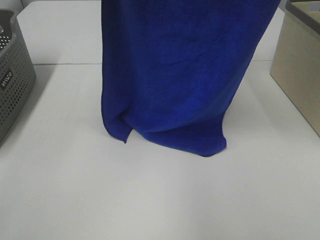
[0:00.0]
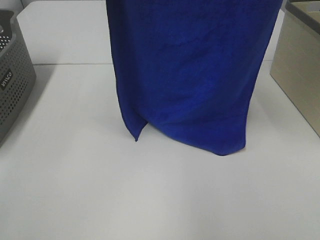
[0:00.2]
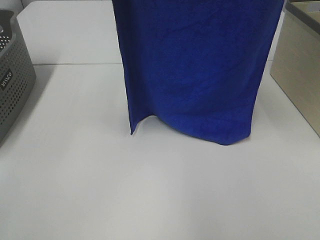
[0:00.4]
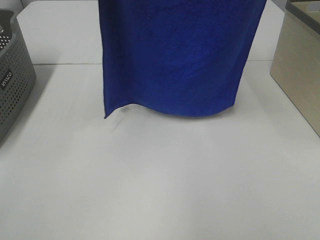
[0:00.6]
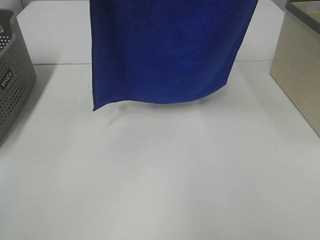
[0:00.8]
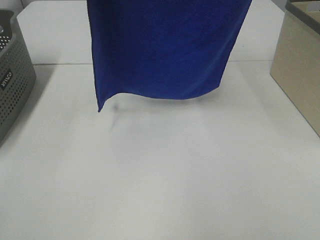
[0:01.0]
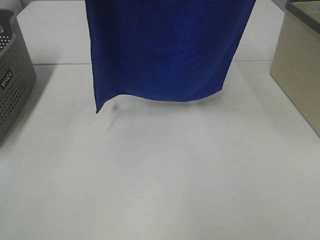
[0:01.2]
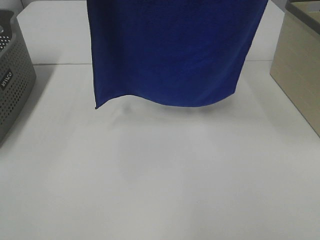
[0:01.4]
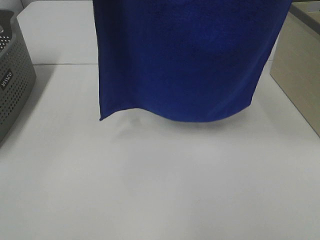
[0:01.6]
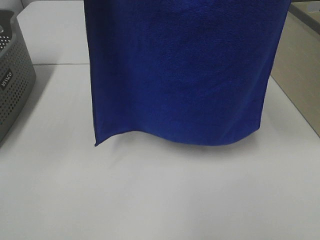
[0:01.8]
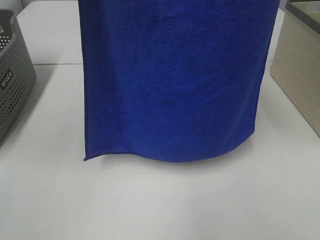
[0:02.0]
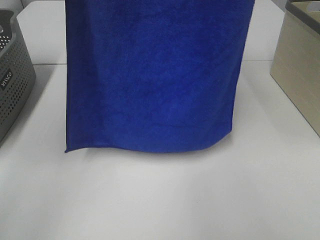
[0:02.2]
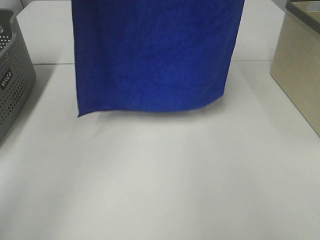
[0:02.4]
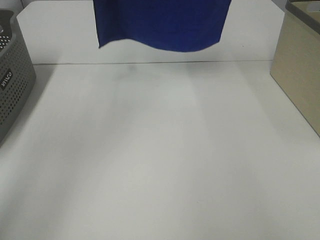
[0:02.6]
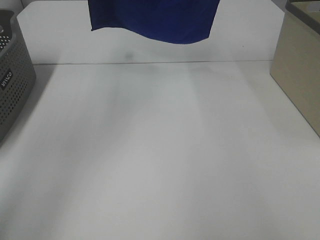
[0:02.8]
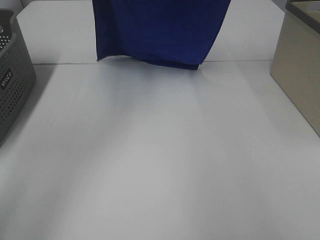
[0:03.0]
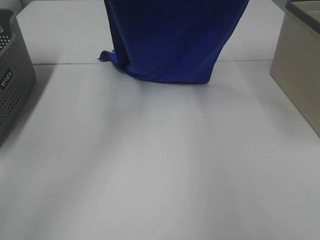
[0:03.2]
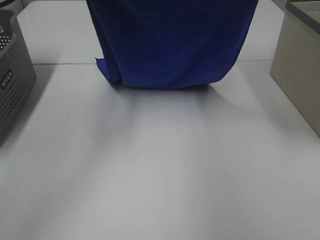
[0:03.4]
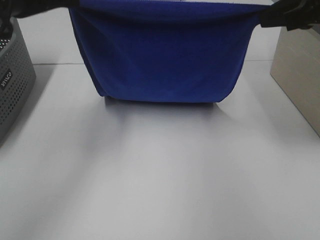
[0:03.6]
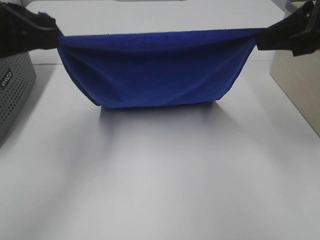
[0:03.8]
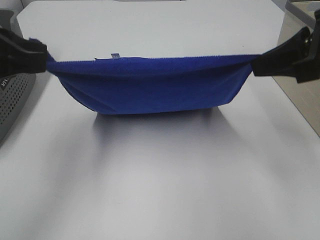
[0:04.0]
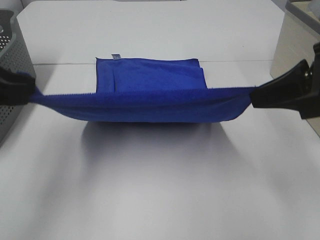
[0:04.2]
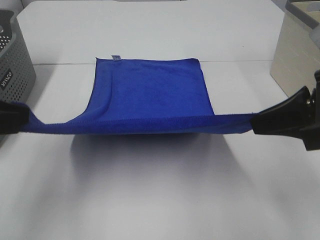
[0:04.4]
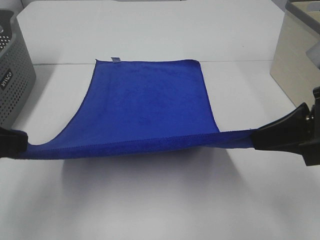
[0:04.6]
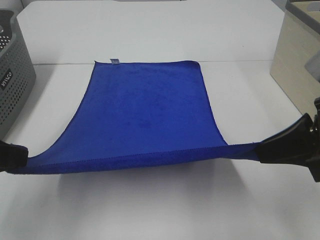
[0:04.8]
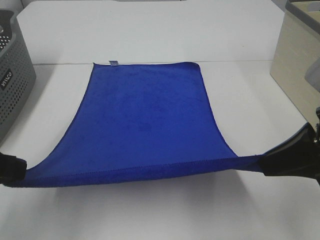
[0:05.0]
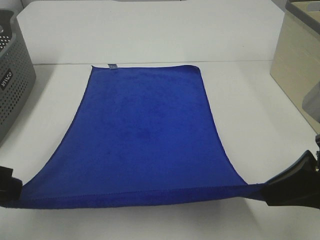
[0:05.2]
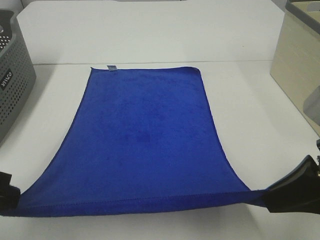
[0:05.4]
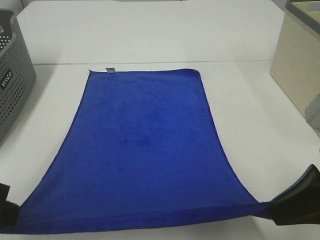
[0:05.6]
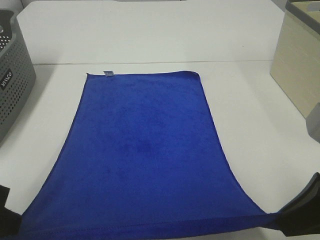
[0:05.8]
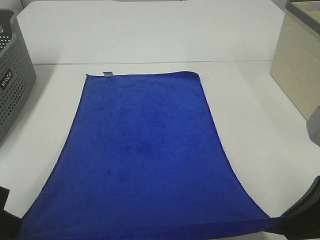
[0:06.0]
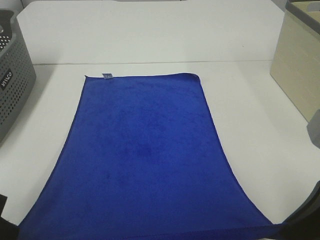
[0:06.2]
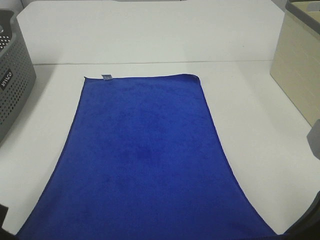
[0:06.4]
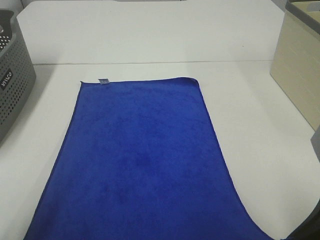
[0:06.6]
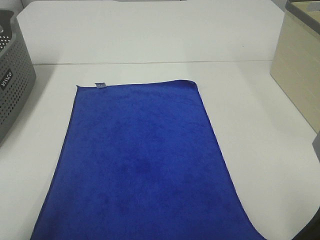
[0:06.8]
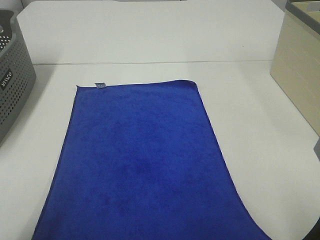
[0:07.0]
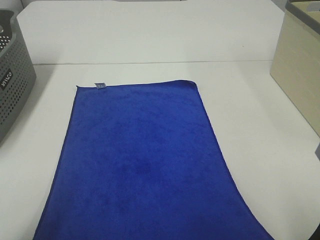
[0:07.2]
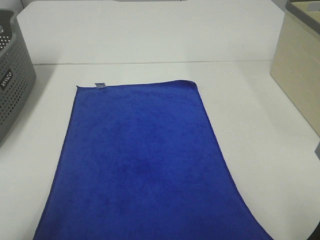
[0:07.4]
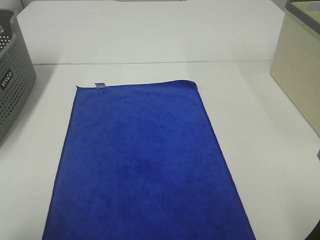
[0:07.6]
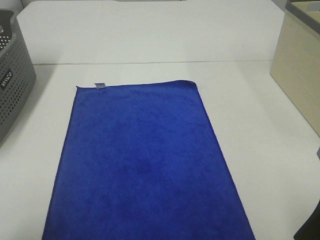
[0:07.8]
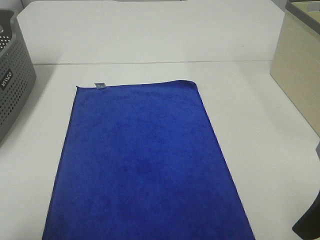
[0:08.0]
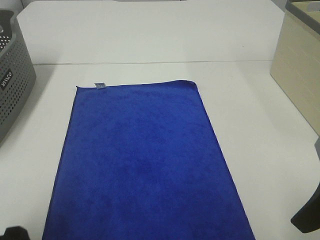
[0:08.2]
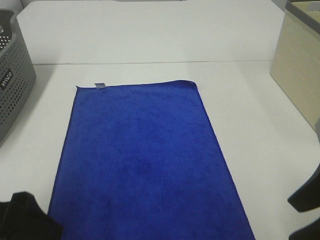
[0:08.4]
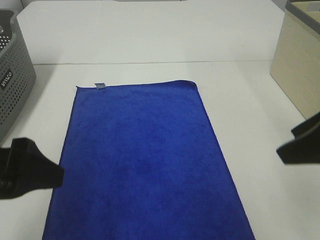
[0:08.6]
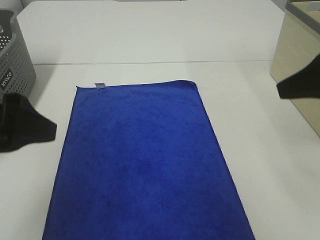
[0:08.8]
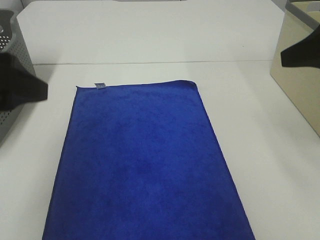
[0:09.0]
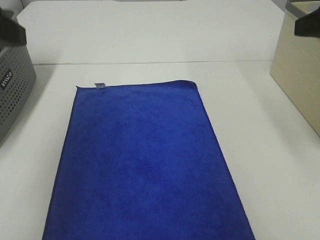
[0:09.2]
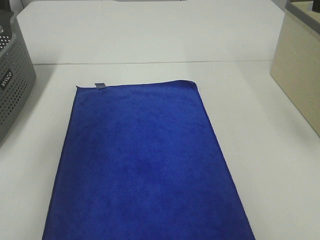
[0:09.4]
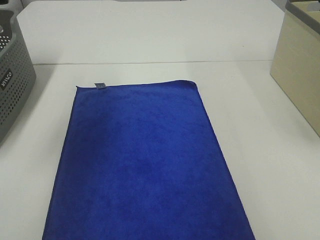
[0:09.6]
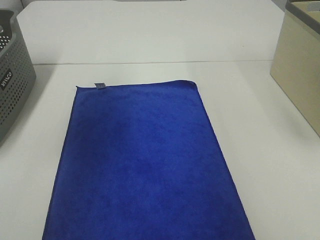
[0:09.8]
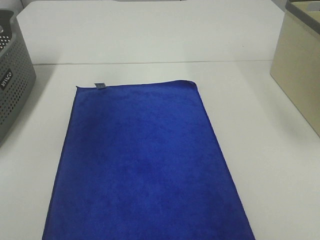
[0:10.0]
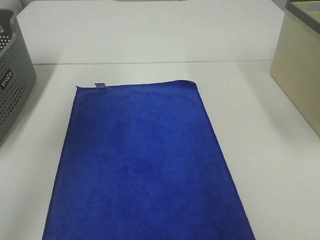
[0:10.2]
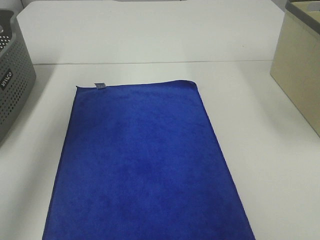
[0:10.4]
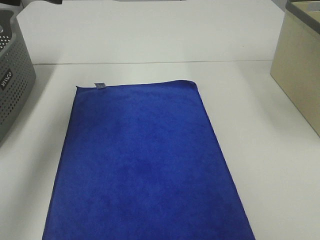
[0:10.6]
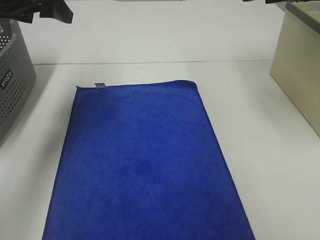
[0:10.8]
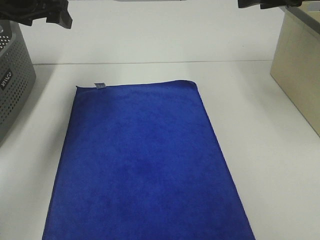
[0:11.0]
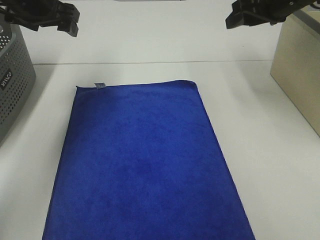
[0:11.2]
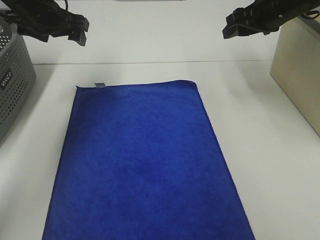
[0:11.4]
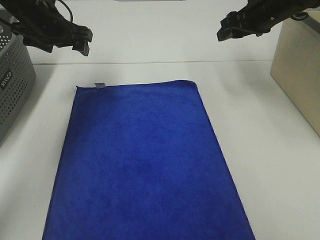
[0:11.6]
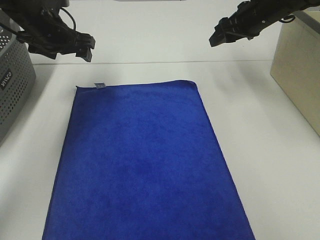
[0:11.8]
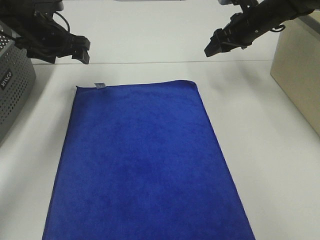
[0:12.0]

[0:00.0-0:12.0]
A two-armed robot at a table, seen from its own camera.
Task of the whole recording: Remove the towel and place it.
Step, 0:00.0 to 0:02.8: Left hand: spread the blue towel flat on the table.
Step, 0:00.0 to 0:02.8: Right hand: spread the blue towel flat on the table.
0:00.0 to 0:01.6: The left gripper moves backward and upward, about 10 cm, while the right gripper goes approximately 10 cm upward and backward.
0:01.6 to 0:03.0: Both grippers move forward and downward, roughly 20 cm.
0:03.0 to 0:04.4: The left gripper goes about 30 cm backward and downward; the right gripper goes roughly 30 cm downward and backward.
0:04.4 to 0:06.0: The right gripper shifts about 5 cm backward, while the left gripper shifts by roughly 5 cm.
0:06.0 to 0:07.6: The left gripper shifts by about 5 cm, and opens up; the right gripper opens.
0:07.6 to 0:09.0: The grippers both shift upward and forward by some 15 cm. The left gripper opens up. Meanwhile the right gripper opens.
0:09.0 to 0:10.4: Both grippers travel together forward, approximately 15 cm.
0:10.4 to 0:12.0: The right gripper travels forward and downward by approximately 25 cm; the left gripper travels downward and forward by roughly 25 cm.

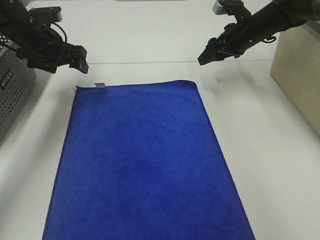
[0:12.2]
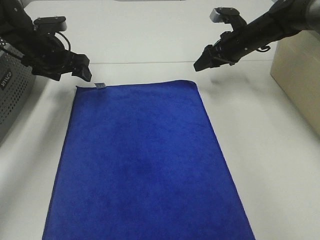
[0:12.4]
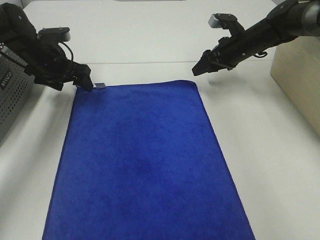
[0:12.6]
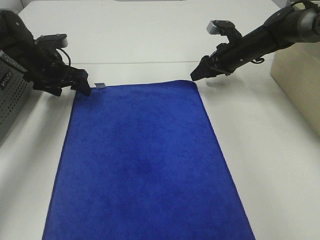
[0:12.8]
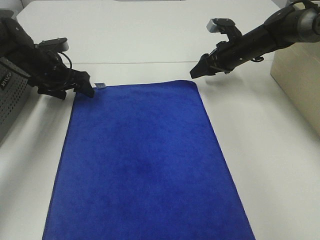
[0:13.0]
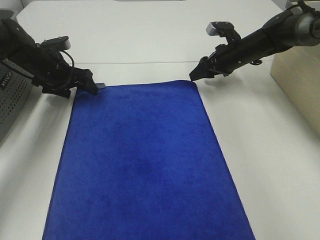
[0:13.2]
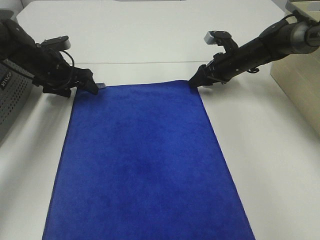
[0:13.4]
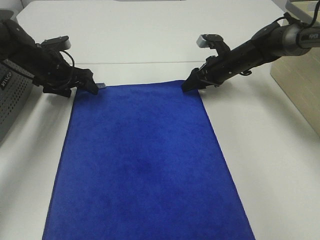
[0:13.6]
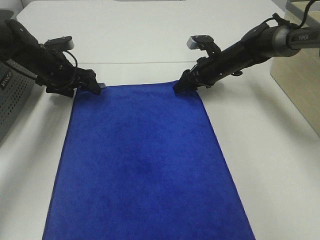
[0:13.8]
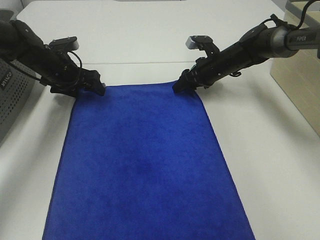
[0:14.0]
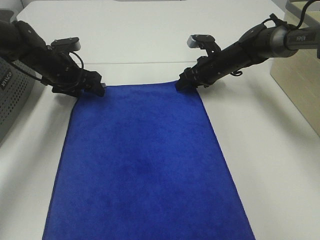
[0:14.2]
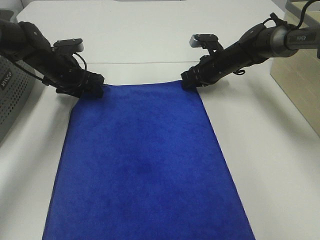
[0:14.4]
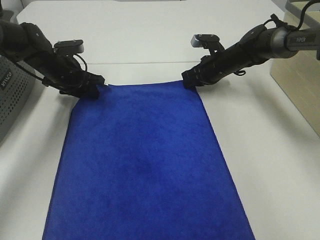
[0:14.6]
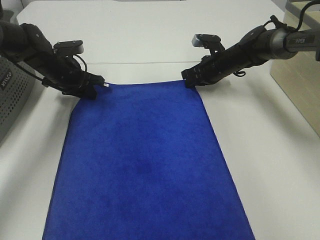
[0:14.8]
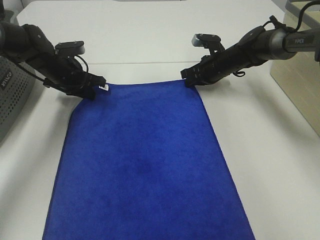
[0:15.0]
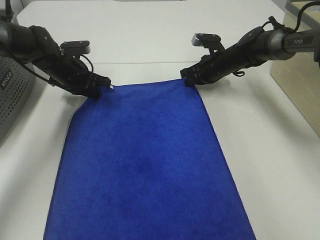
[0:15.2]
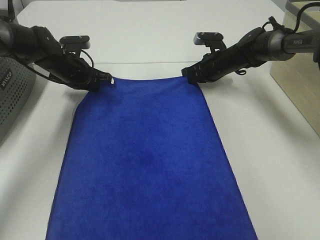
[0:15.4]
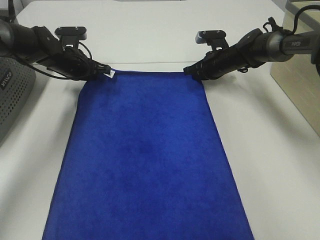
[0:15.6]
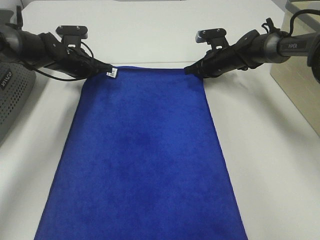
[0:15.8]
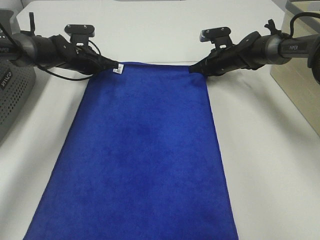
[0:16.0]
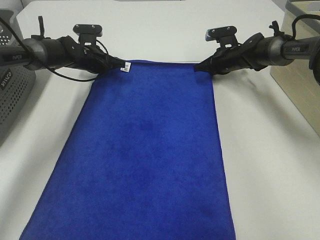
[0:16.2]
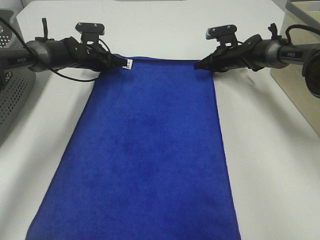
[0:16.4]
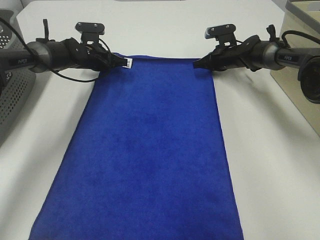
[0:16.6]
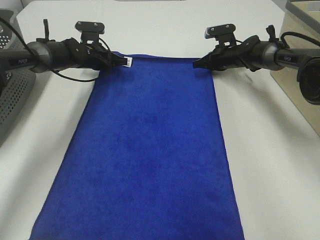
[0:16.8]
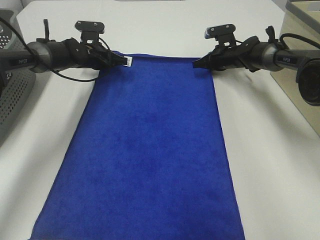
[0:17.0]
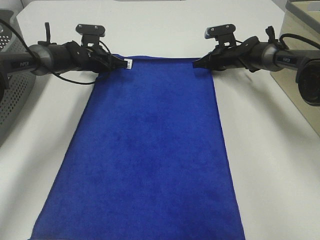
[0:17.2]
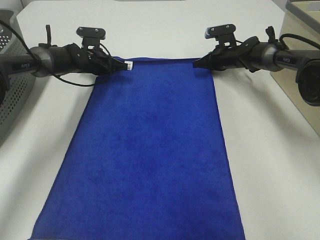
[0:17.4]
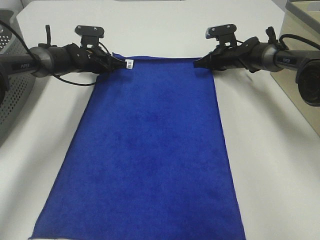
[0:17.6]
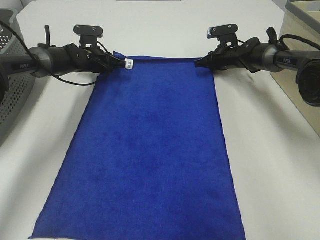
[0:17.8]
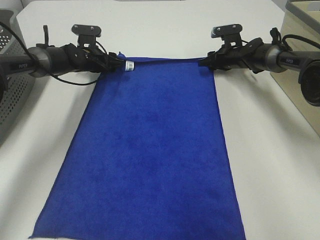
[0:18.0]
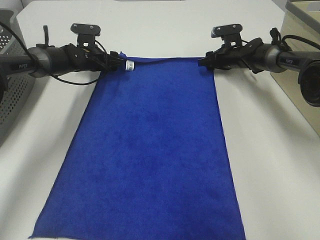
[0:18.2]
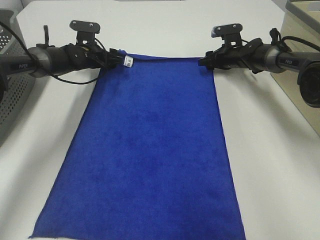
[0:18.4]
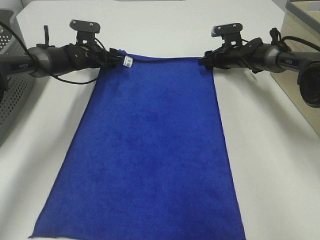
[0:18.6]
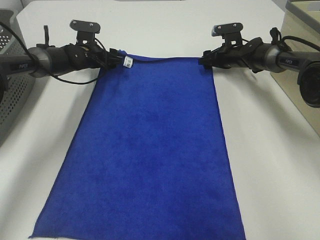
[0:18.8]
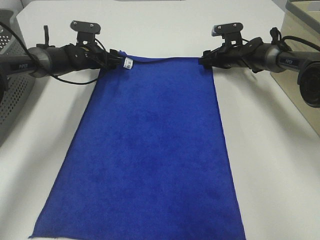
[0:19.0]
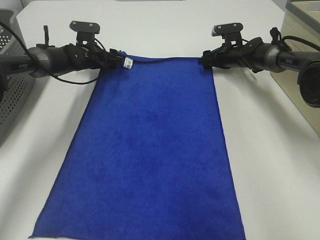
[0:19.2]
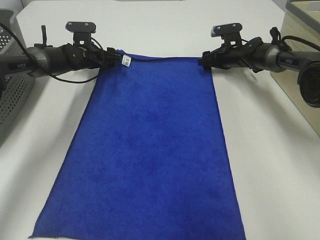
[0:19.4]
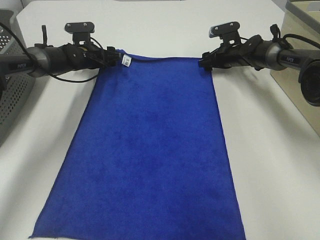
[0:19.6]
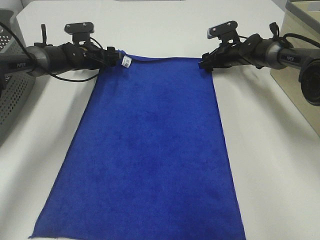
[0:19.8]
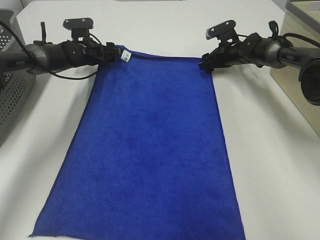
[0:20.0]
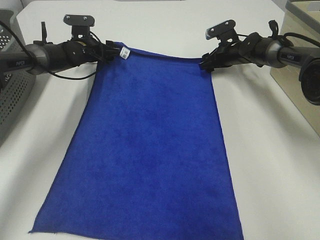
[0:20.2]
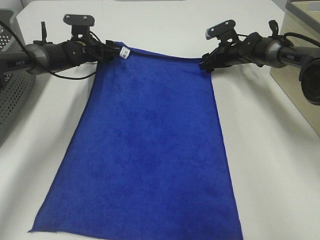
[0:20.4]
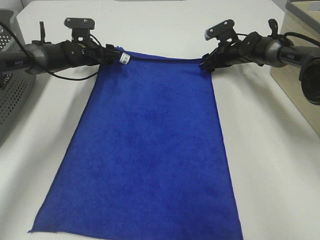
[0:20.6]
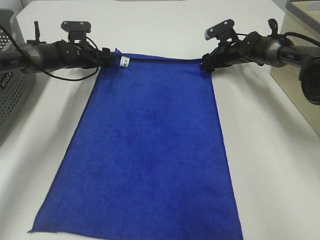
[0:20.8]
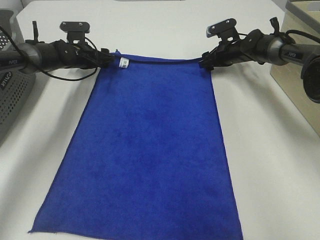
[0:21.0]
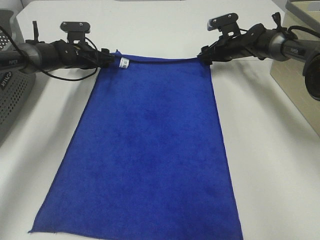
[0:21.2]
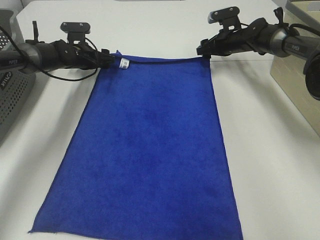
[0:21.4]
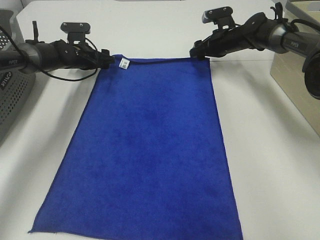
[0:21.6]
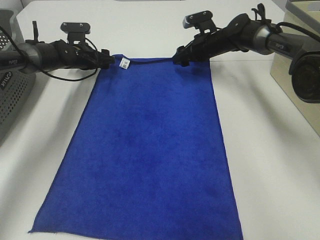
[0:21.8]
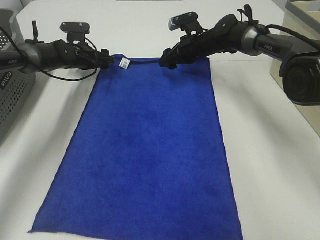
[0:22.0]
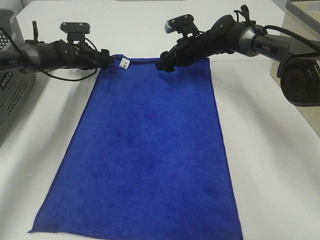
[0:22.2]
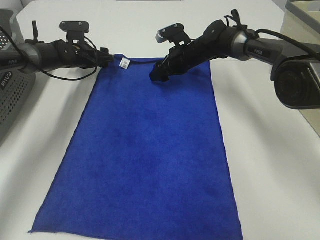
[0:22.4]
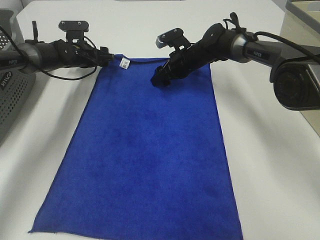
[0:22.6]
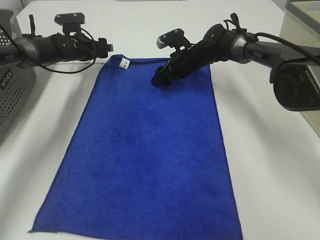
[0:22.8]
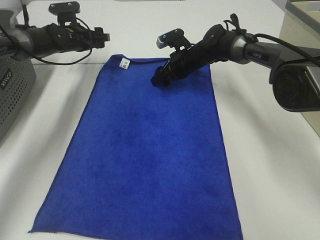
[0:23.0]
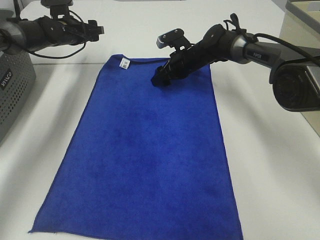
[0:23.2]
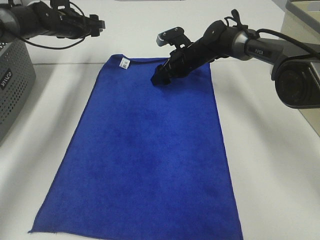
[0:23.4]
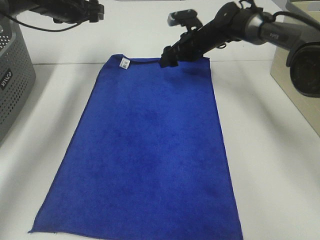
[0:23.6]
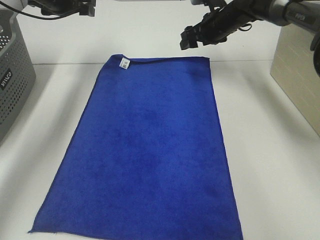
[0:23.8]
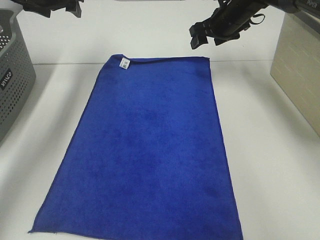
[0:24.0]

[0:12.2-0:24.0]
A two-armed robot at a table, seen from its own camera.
Task of the whole recording: Remove the towel and place it.
Step, 0:12.2 to 0:15.4: Left hand:adjust the blue towel.
Step, 0:12.2 to 0:15.4: Right hand:adjust the blue towel.
0:12.2 to 0:13.6: The two grippers go approximately 5 cm downward.
0:13.6 to 0:15.2: The left gripper closes up. The right gripper closes.
0:15.2 to 0:16.6: The right gripper shifts roughly 5 cm forward; the left gripper travels forward by approximately 10 cm.
0:16.6 to 0:18.2: The left gripper opens. Meanwhile the right gripper opens.
0:18.2 to 0:21.0: There are only small adjustments of the grippers.
0:21.0 to 0:22.6: The right gripper is displaced to the left by some 10 cm.
0:22.6 to 0:24.0: The left gripper heads upward, covering roughly 20 cm, while the right gripper heads upward and to the right, covering roughly 15 cm.
